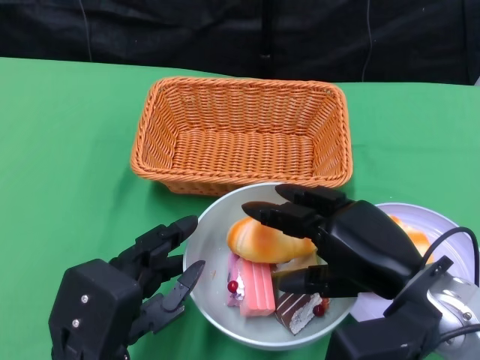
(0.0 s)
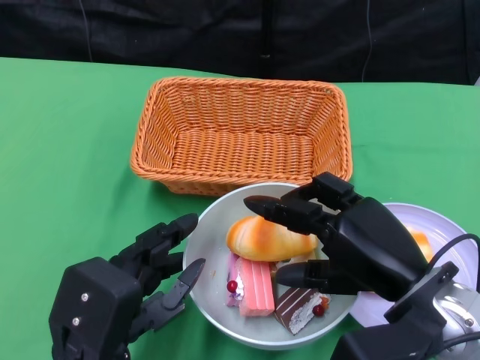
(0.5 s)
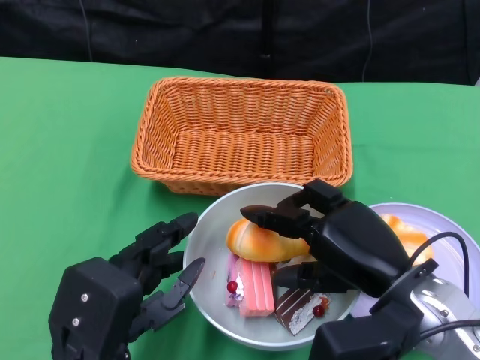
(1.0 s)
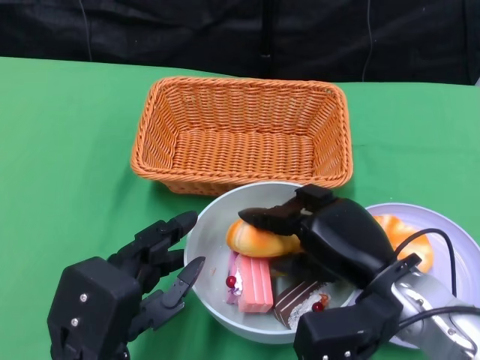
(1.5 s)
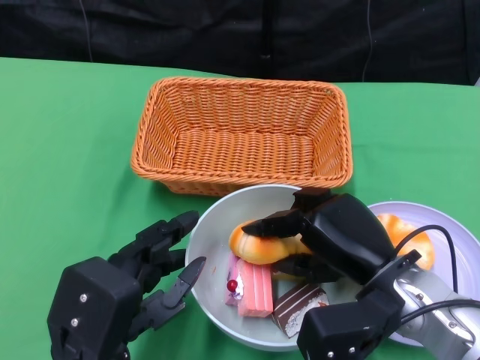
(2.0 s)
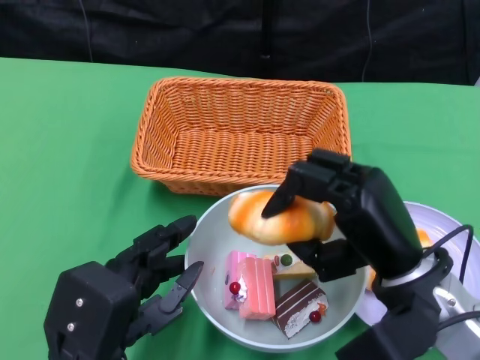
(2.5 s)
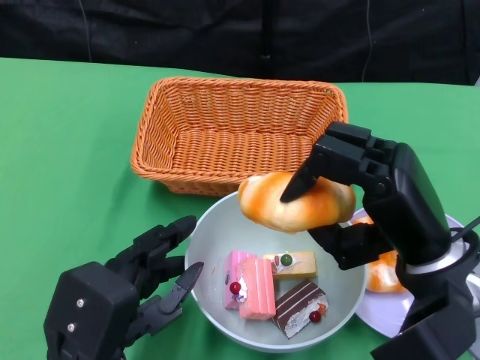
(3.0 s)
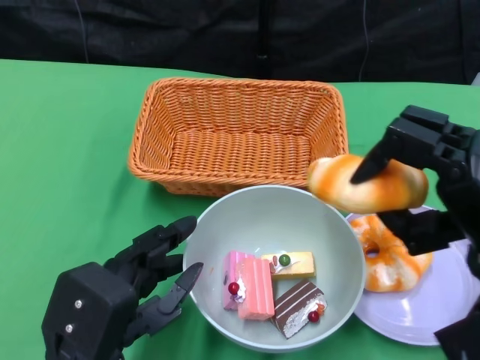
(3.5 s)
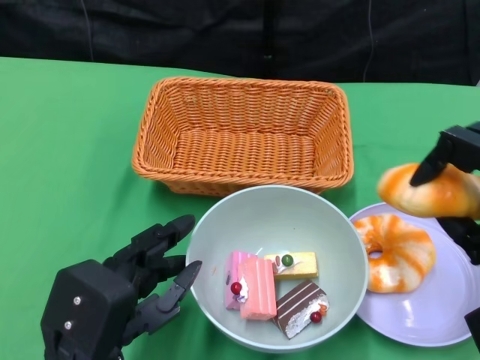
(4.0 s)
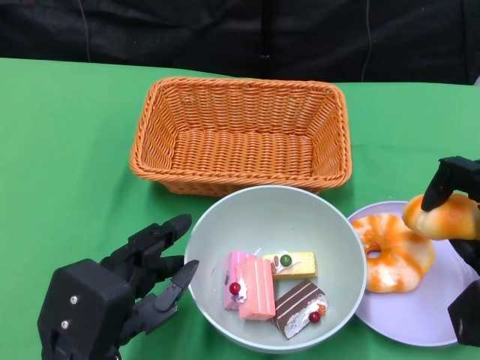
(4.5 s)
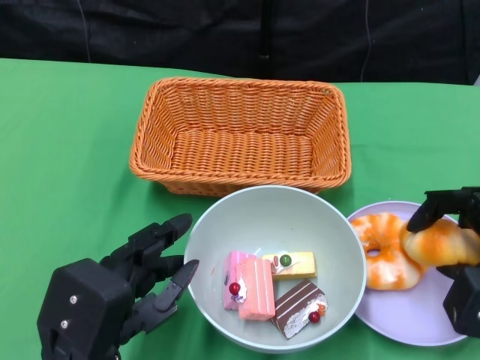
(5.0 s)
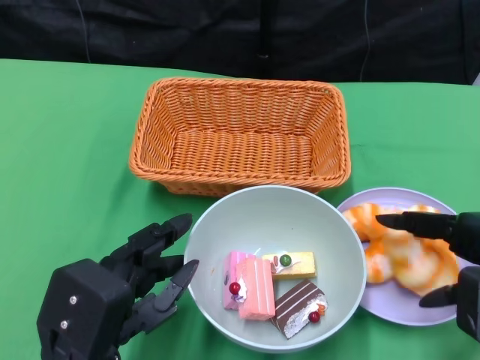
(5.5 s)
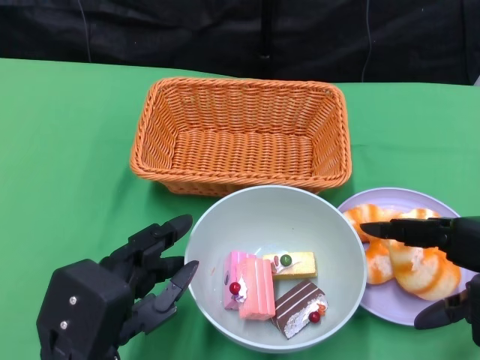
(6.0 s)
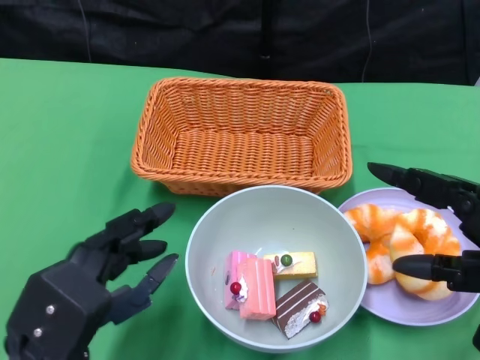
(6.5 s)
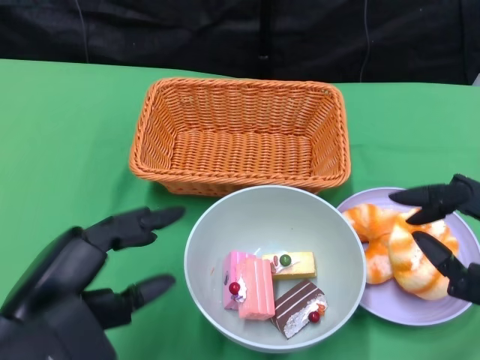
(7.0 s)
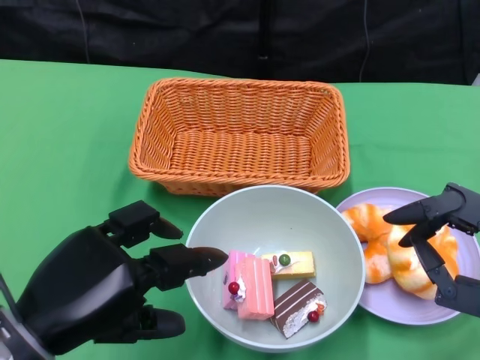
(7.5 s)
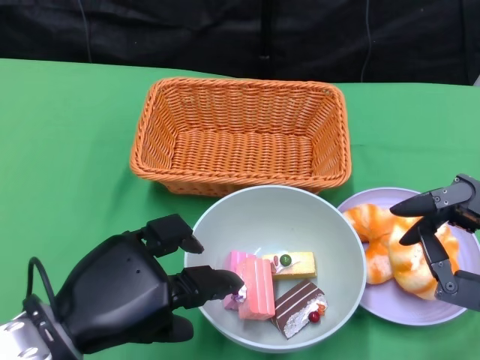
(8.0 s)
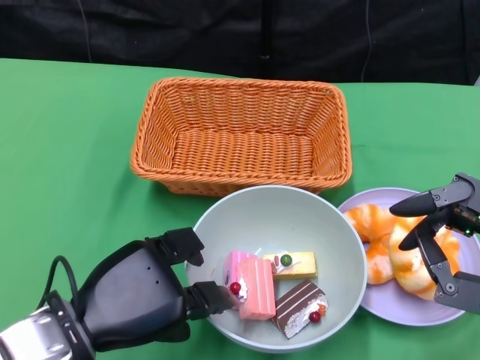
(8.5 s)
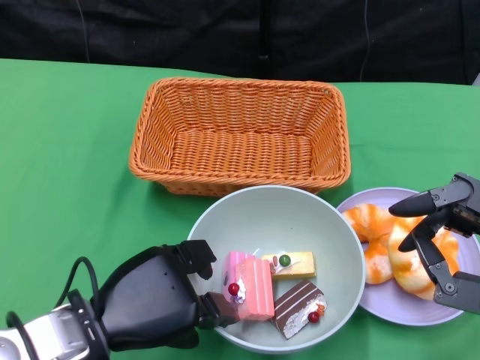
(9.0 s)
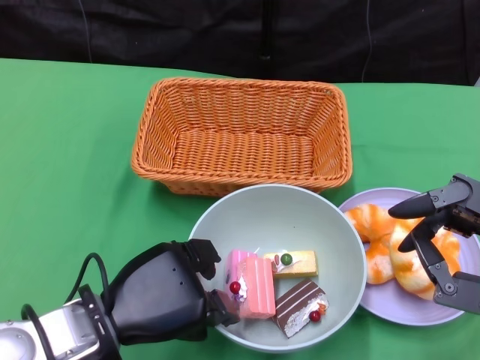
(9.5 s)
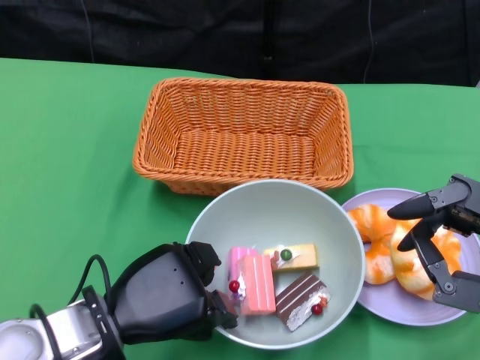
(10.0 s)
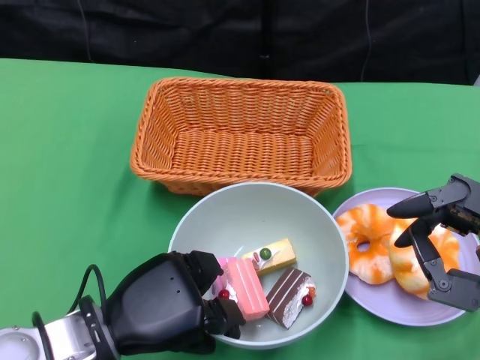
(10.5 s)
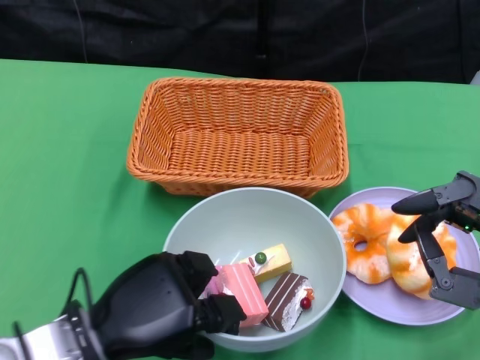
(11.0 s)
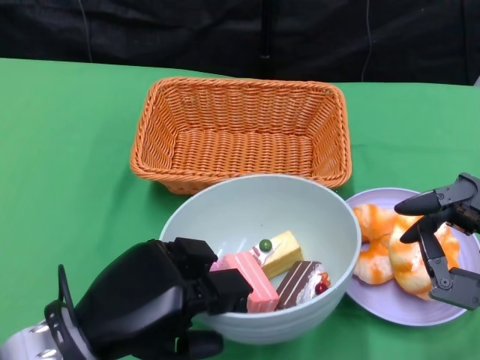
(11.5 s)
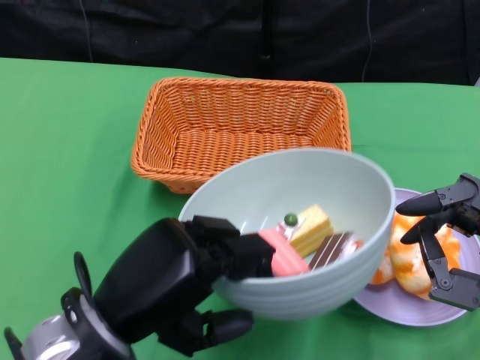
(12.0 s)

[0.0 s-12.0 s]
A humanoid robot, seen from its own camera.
Step, 0.0 to 5.5 s: Pick up the bread with the right gripper and place it on the plate.
Step, 6.0 to 10.0 s: Grasp the bowl with the left gripper.
0.0 to 2.0 s: The right hand ends up some 5 cm from where it was.
2.0 to 4.0 s: The right hand moves to the right and upward, some 15 cm.
6.0 to 8.0 s: The right hand shifts approximately 5 cm downward.
8.0 to 10.0 s: The left hand shifts by roughly 5 cm.
10.0 to 12.0 s: The left hand heads upward, covering roughly 5 cm.

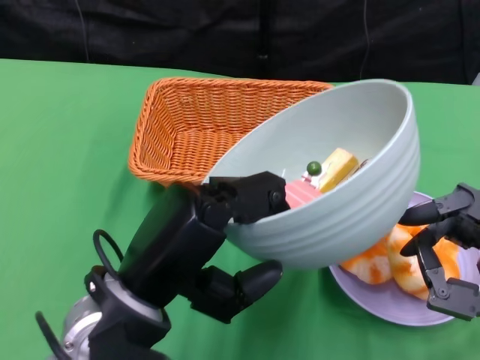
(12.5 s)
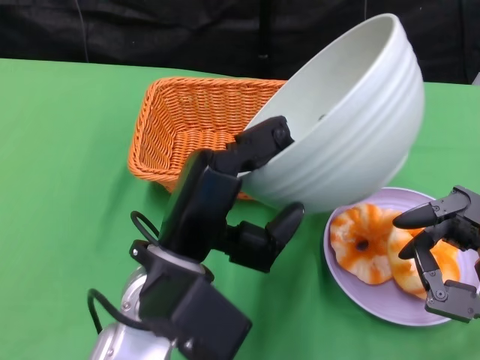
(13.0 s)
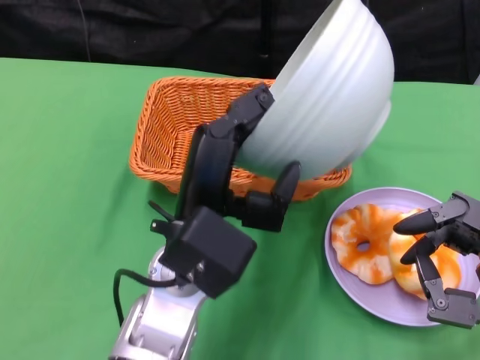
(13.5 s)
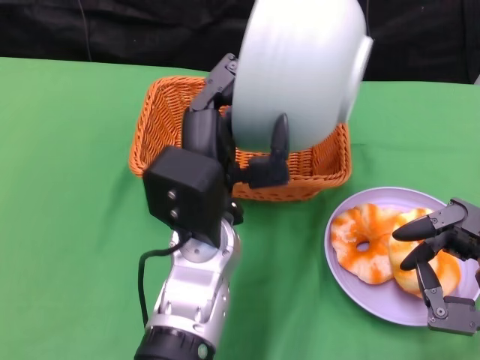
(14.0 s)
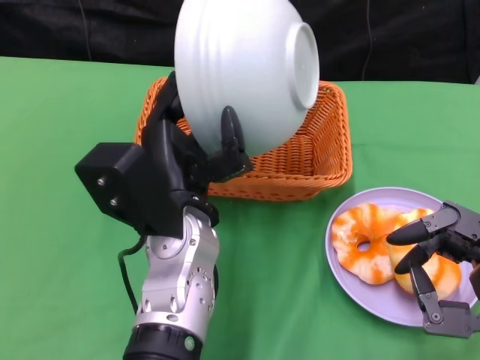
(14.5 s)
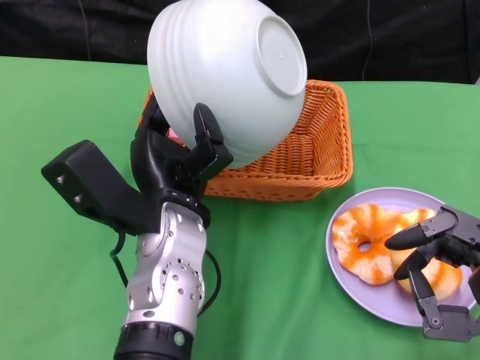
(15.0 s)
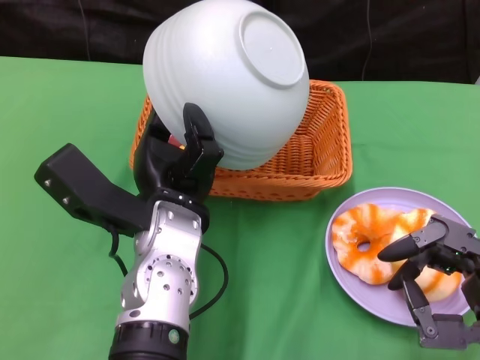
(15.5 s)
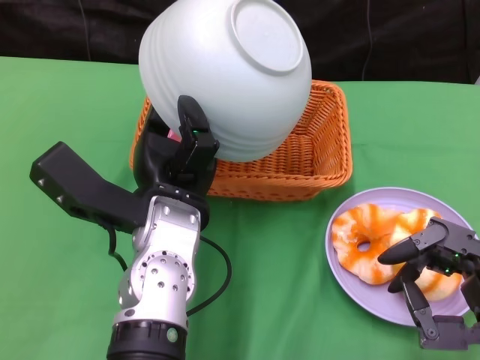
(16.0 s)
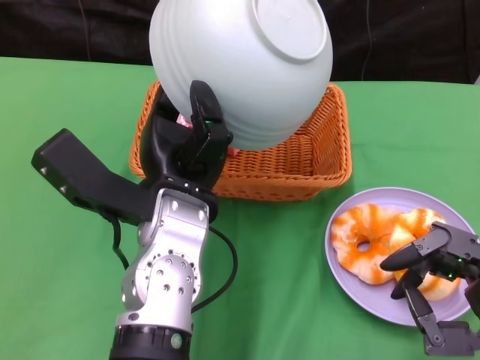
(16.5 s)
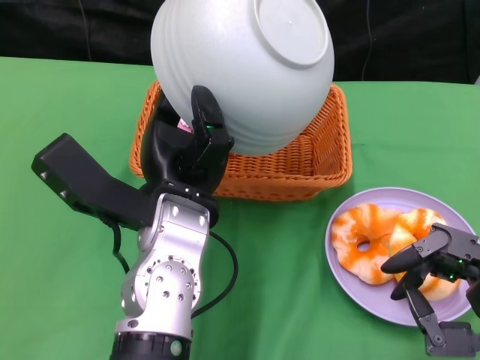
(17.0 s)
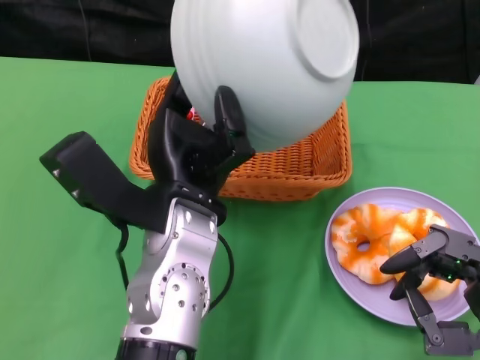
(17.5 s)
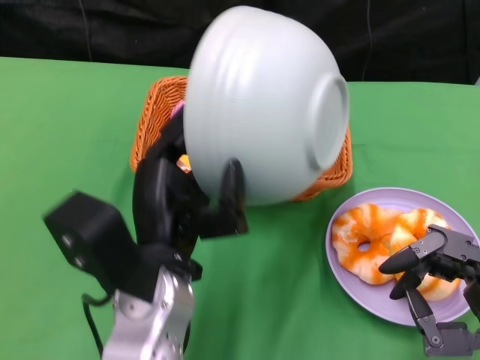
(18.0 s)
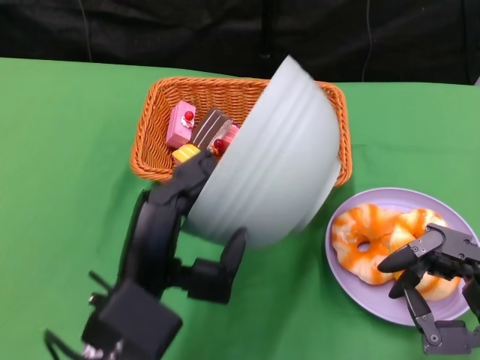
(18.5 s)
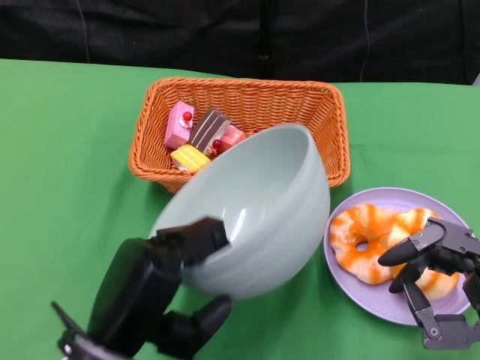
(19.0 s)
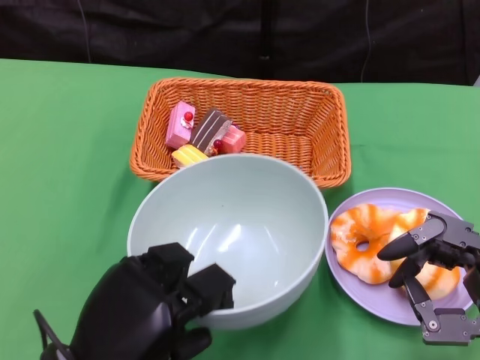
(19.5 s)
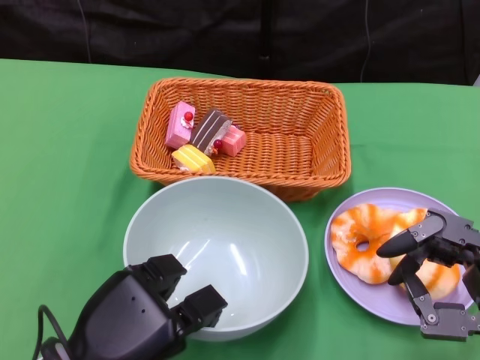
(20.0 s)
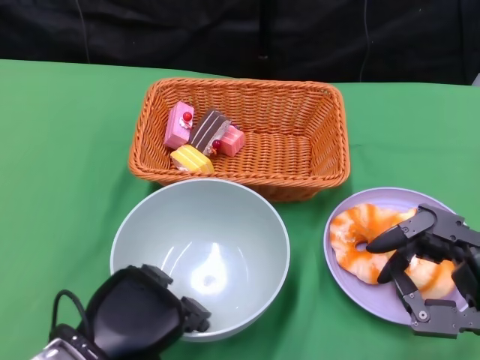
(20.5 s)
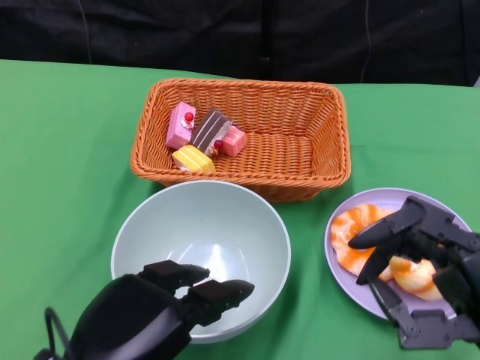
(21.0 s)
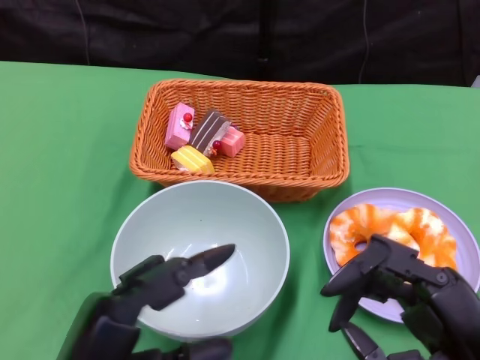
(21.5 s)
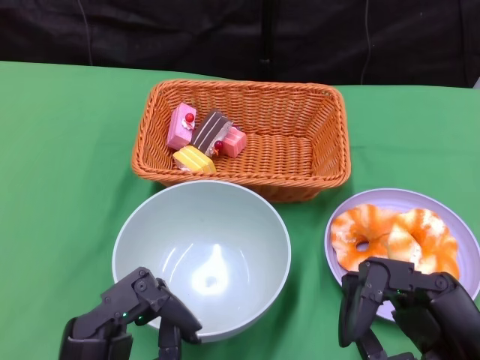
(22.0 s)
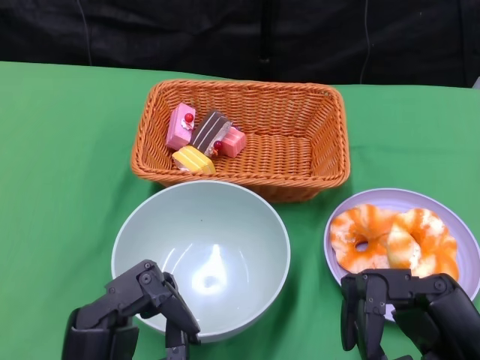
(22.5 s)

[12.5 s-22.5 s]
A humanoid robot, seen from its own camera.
Step, 12.5 to 17.0 s: Pour the cake into the basket with the left gripper.
Step, 17.5 to 20.5 s: Place the bowl on the table with the left gripper.
12.5 to 14.5 s: The left hand travels forward and to the right by some 10 cm.
16.5 to 18.5 s: The left hand is displaced backward by roughly 10 cm.
18.5 to 20.5 s: The left hand moves to the left, approximately 5 cm.
20.5 to 22.5 s: The left hand goes about 5 cm backward.
